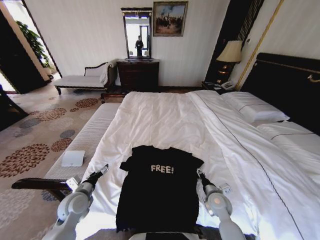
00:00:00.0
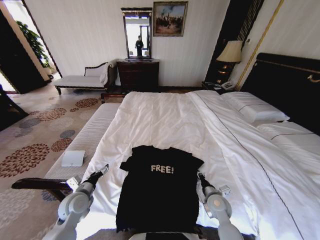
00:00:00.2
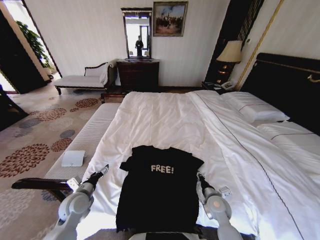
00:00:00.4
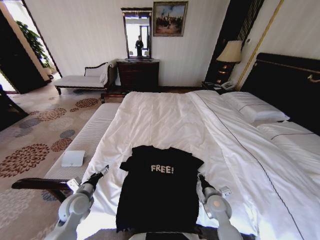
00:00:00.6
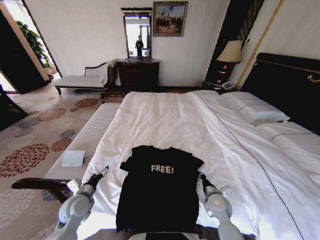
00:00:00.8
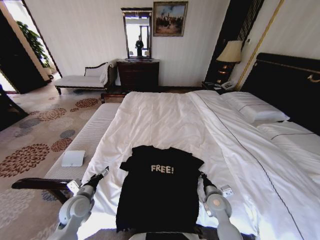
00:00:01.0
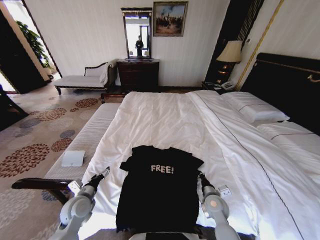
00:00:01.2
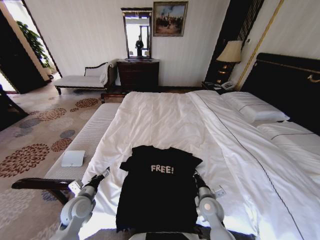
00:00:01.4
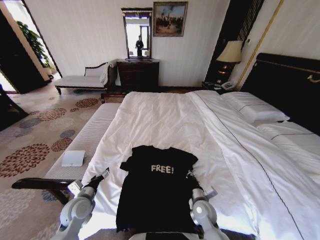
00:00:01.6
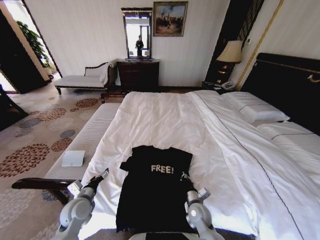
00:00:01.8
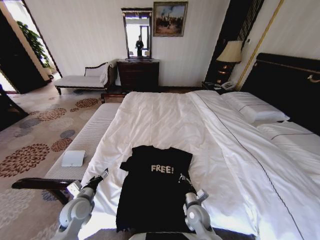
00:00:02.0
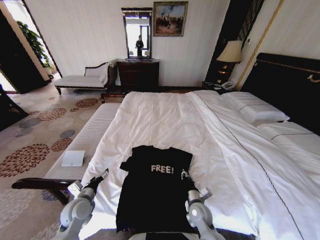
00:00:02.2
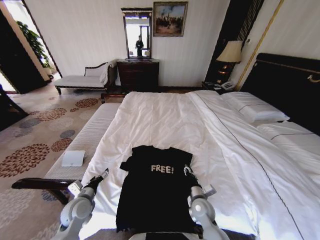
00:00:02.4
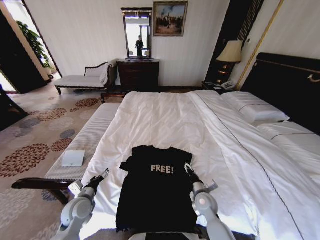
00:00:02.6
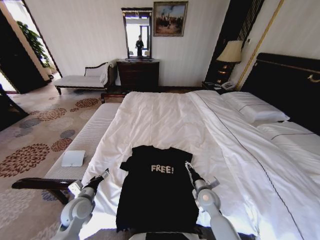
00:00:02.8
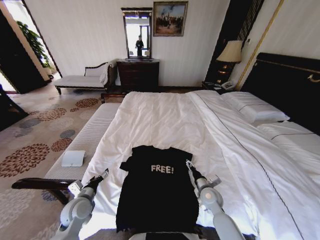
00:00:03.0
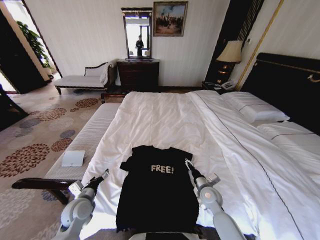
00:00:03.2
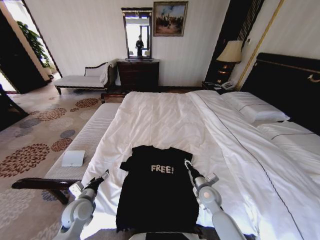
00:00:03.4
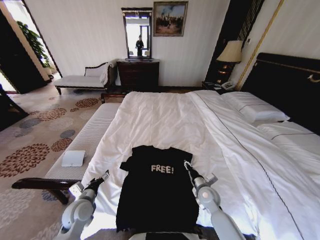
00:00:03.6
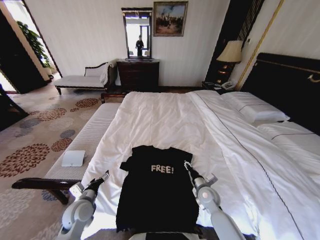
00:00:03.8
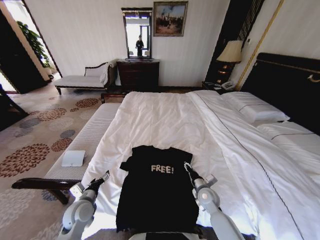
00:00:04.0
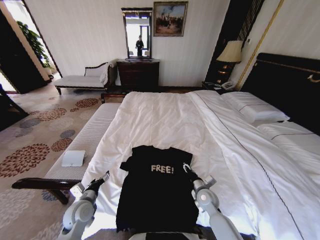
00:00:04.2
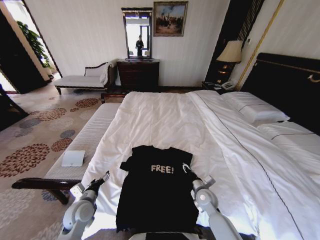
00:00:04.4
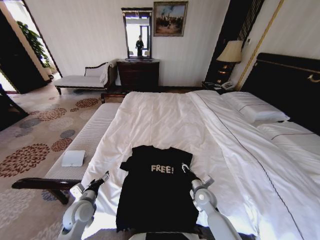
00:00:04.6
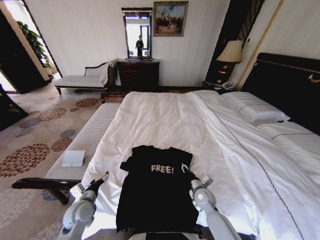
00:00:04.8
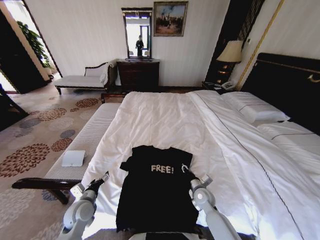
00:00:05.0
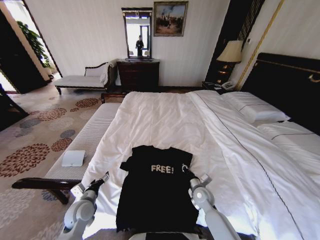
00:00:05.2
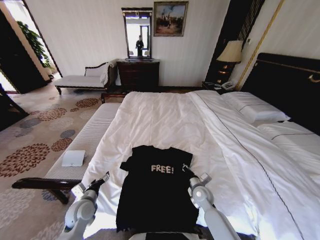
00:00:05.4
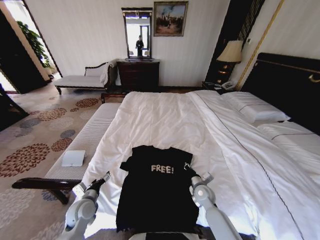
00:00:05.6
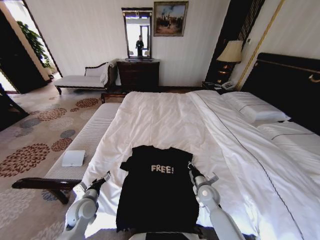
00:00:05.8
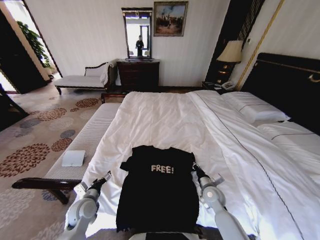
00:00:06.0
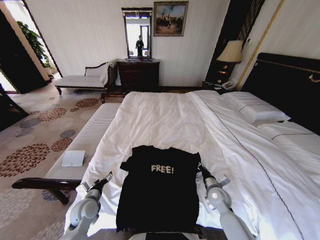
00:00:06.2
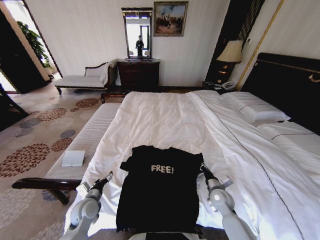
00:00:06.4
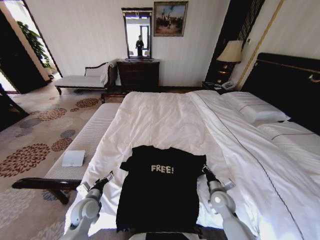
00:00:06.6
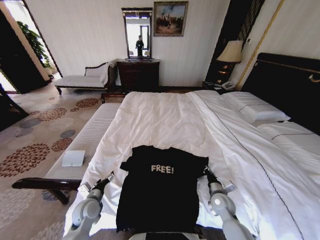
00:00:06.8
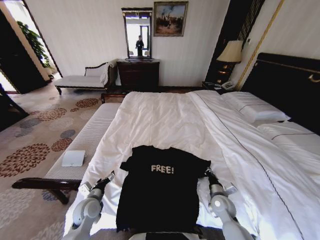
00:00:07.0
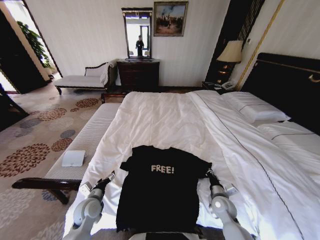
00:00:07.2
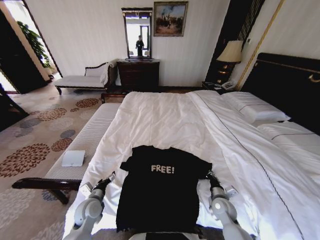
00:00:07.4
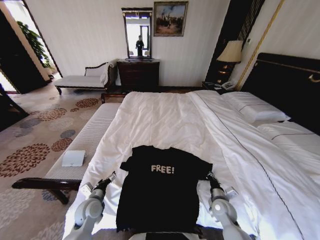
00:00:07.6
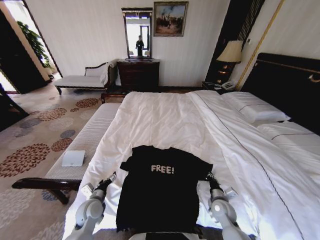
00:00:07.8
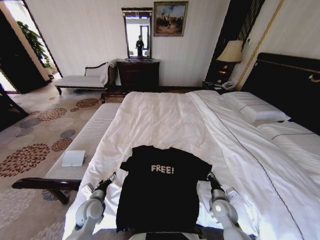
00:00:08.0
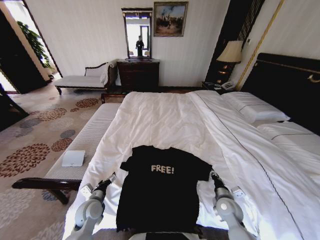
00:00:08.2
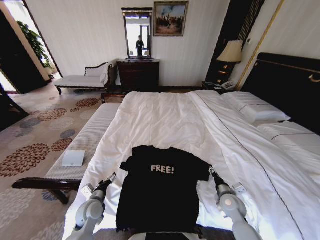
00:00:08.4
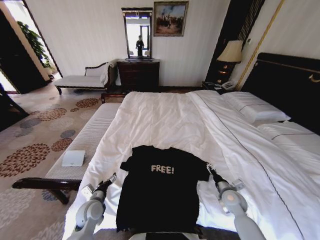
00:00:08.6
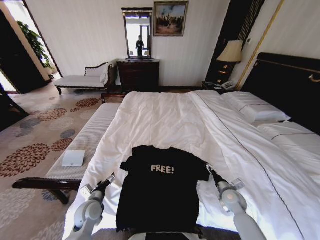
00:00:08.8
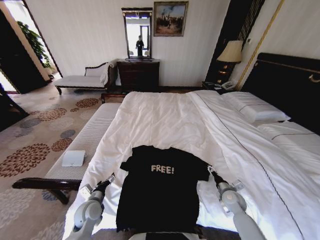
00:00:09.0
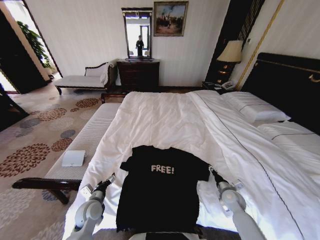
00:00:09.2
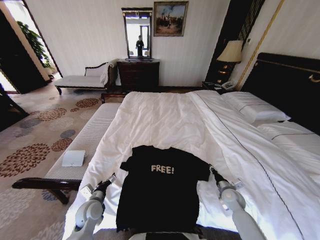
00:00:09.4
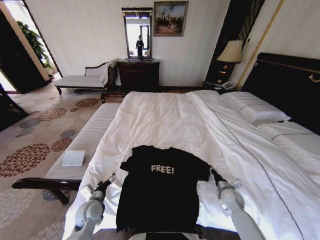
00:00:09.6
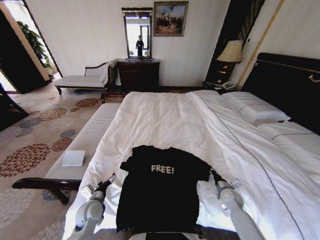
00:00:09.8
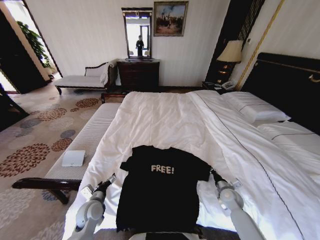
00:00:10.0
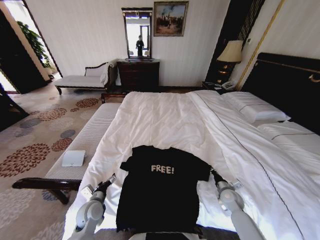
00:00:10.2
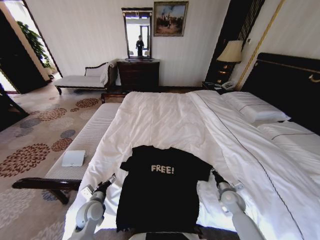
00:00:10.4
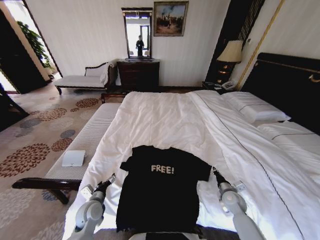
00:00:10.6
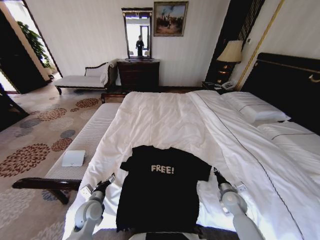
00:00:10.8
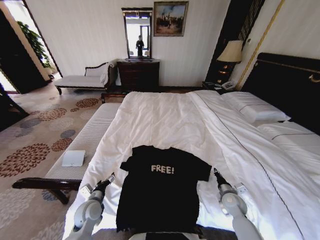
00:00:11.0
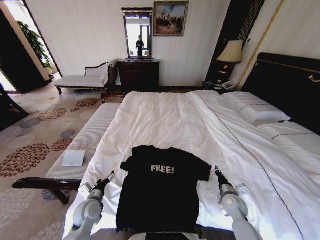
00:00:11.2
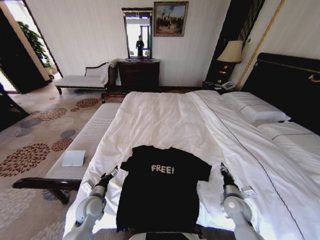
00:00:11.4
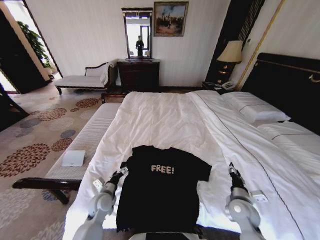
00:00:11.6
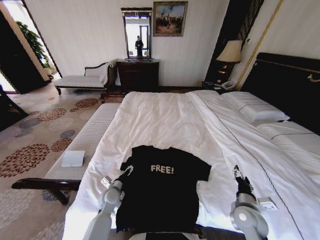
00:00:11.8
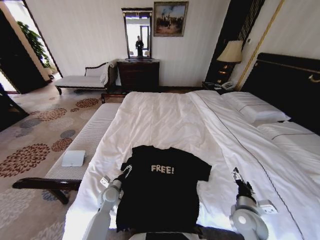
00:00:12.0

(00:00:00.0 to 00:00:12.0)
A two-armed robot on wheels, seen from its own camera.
Task of the whole recording: Fold the clothes on the bed.
00:00:00.0 - 00:00:01.6: The right gripper goes some 5 cm to the left, and closes.
00:00:01.6 - 00:00:03.0: The right gripper moves about 5 cm, and opens its fingers.
00:00:03.0 - 00:00:04.4: The right gripper closes up.
00:00:04.4 - 00:00:06.0: The right gripper closes its fingers.
00:00:06.0 - 00:00:07.6: The right gripper shifts by approximately 5 cm.
00:00:07.6 - 00:00:09.0: The right gripper goes some 5 cm to the right, and opens up.
00:00:10.4 - 00:00:12.0: The right gripper moves backward and upward, some 10 cm, and opens. The left gripper moves forward, approximately 5 cm.

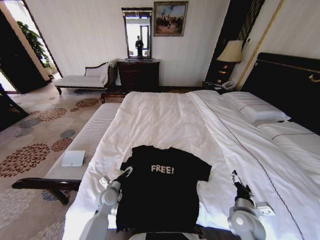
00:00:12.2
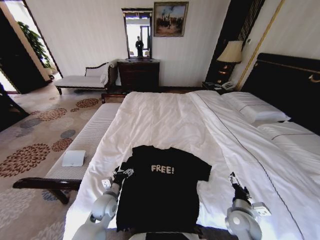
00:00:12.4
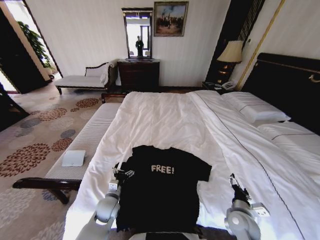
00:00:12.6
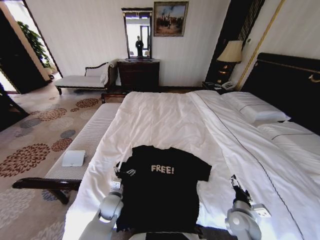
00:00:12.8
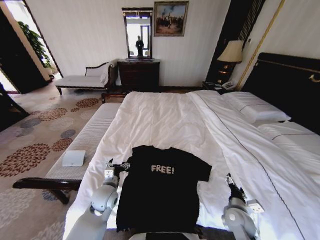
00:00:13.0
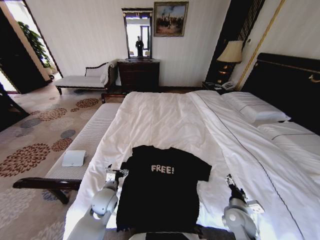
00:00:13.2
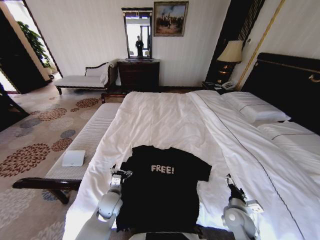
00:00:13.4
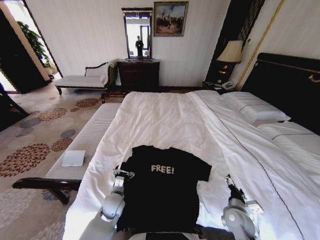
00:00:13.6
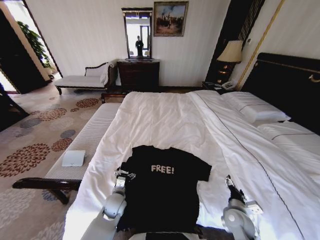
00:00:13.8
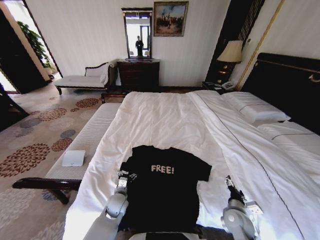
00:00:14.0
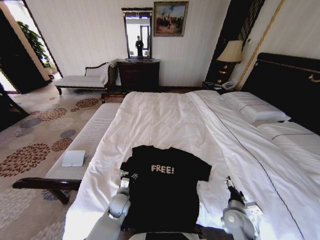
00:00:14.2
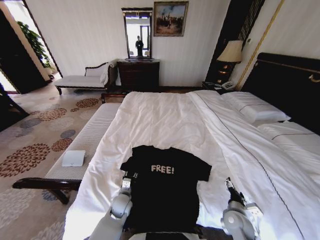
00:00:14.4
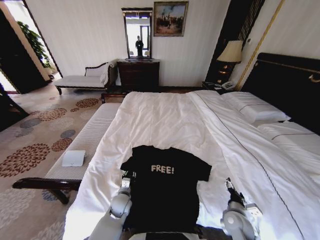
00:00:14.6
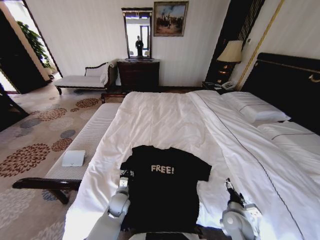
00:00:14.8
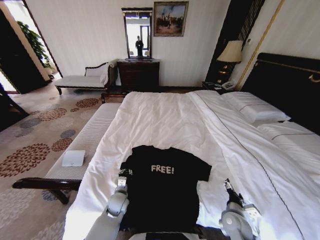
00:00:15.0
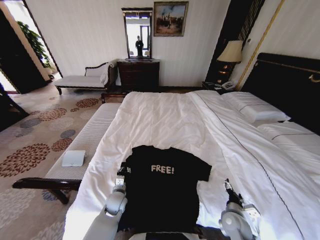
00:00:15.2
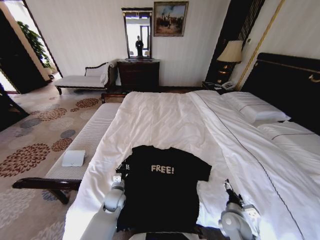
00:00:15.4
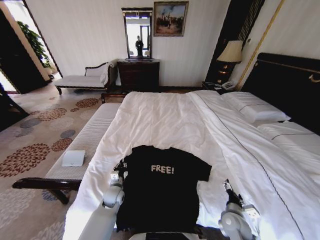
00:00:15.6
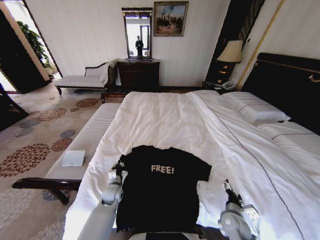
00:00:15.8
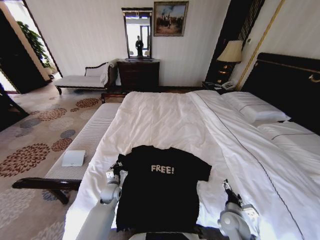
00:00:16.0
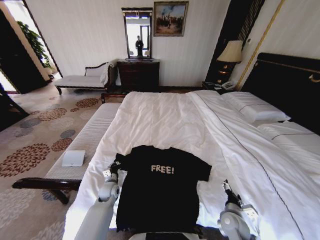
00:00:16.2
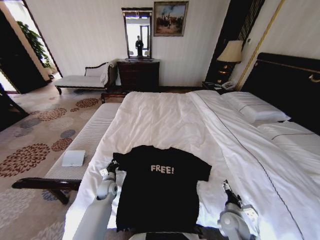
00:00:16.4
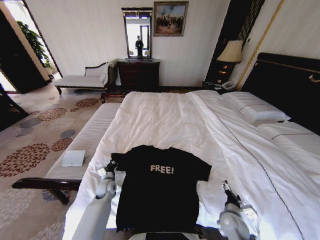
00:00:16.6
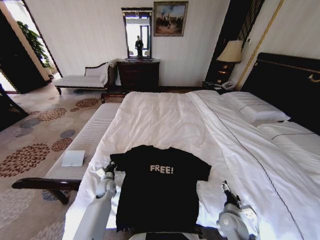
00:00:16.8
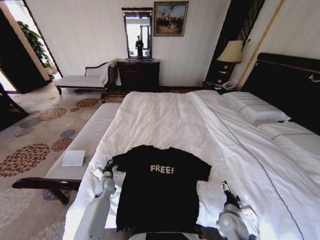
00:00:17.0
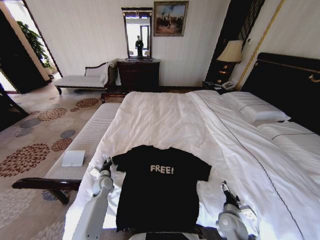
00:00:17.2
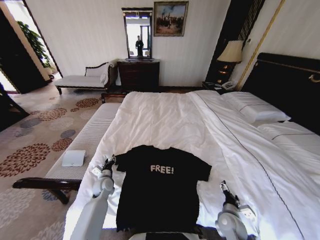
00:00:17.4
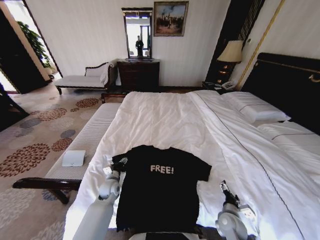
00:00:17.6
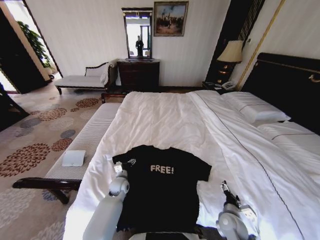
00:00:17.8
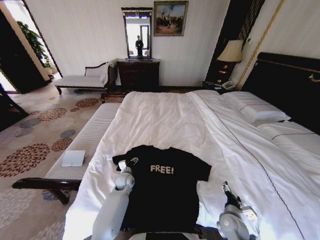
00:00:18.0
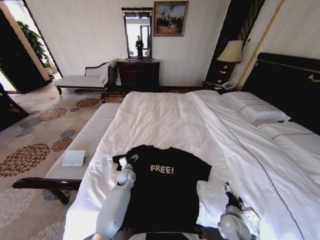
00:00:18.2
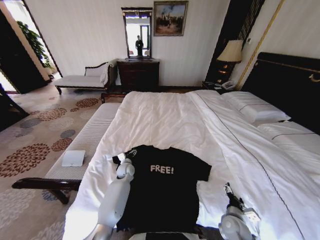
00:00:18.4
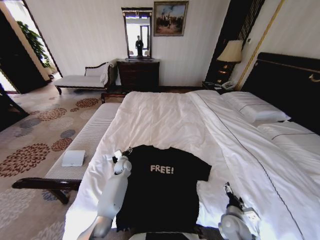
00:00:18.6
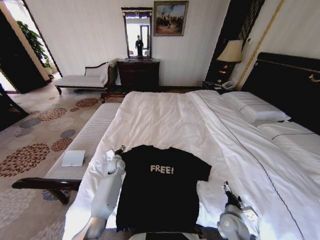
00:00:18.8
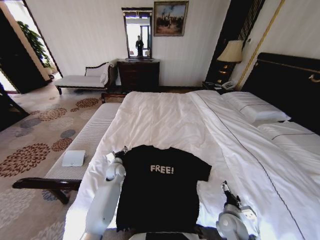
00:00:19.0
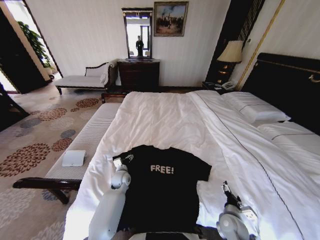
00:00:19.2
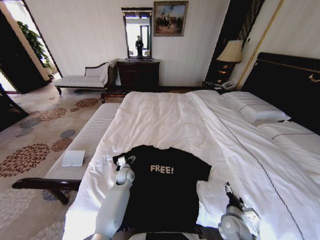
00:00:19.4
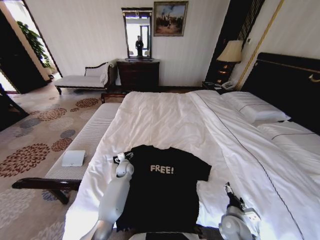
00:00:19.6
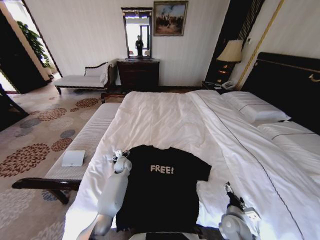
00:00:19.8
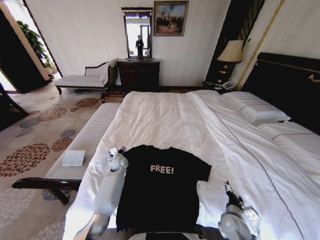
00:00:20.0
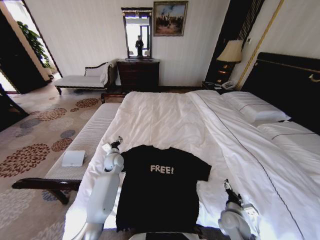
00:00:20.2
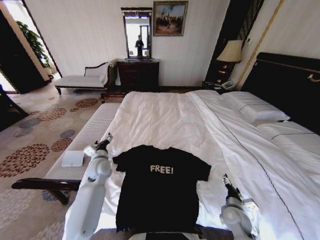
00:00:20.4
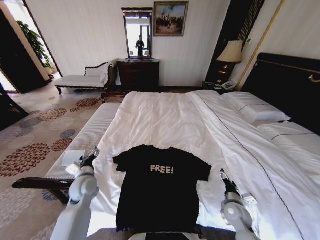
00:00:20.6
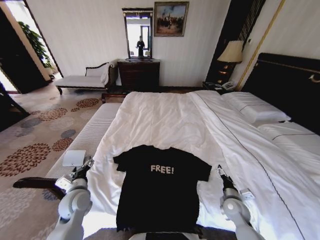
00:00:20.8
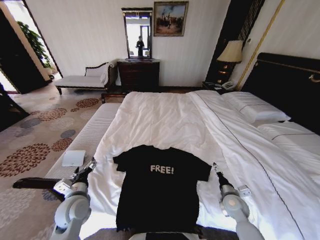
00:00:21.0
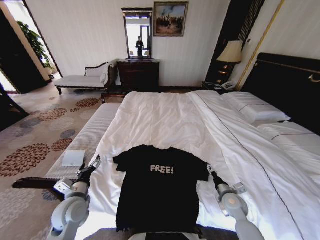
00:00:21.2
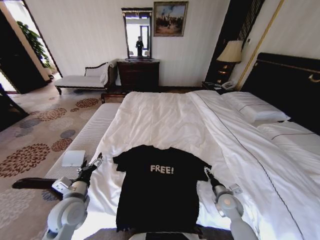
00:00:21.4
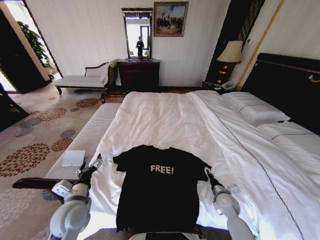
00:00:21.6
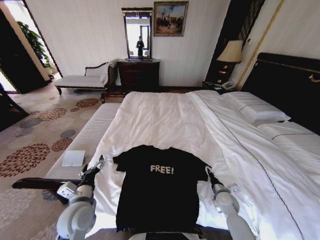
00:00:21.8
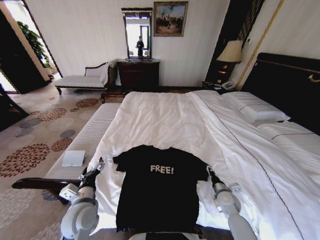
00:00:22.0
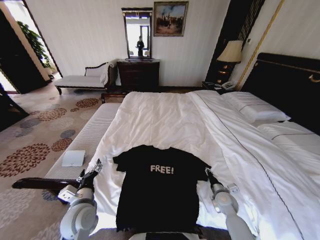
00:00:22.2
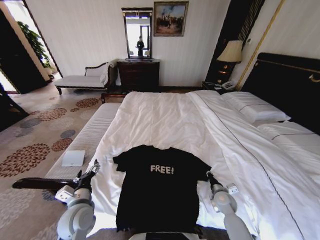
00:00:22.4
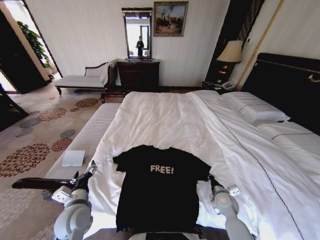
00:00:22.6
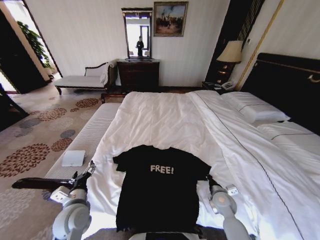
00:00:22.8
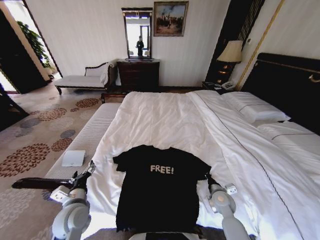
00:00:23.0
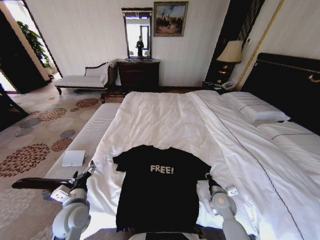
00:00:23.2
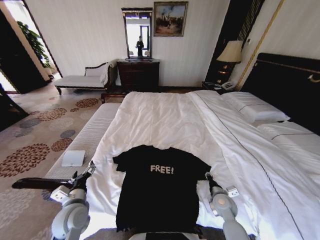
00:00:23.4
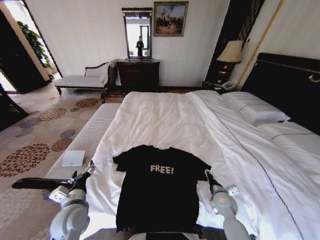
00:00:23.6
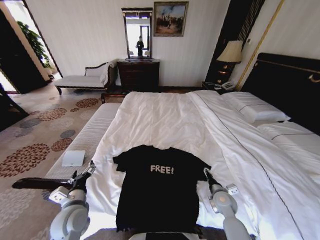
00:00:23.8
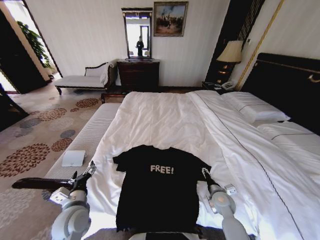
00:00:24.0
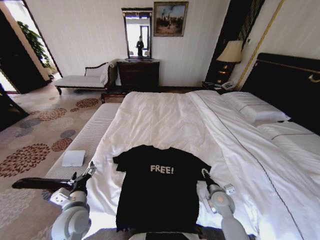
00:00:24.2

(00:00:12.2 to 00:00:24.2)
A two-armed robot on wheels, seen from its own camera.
Task of the whole recording: Fold the clothes on the bed.
00:00:13.8 - 00:00:15.2: The left gripper closes up.
00:00:15.2 - 00:00:16.6: The left gripper travels to the left and forward by approximately 10 cm.
00:00:16.6 - 00:00:18.2: The left gripper shifts approximately 10 cm to the right and forward, and opens.
00:00:18.2 - 00:00:19.8: The left gripper moves forward and backward over roughly 10 cm, changing direction 2 times.
00:00:19.8 - 00:00:21.2: The left gripper shifts some 30 cm backward, upward and to the left, while the right gripper goes approximately 10 cm forward.
00:00:21.2 - 00:00:22.6: The right gripper closes its fingers.
00:00:22.6 - 00:00:24.2: The right gripper opens.
